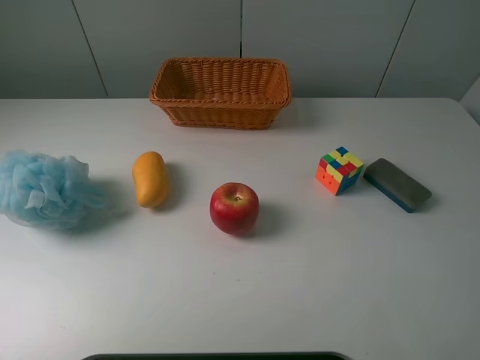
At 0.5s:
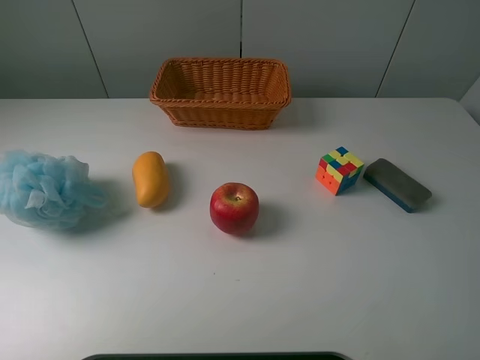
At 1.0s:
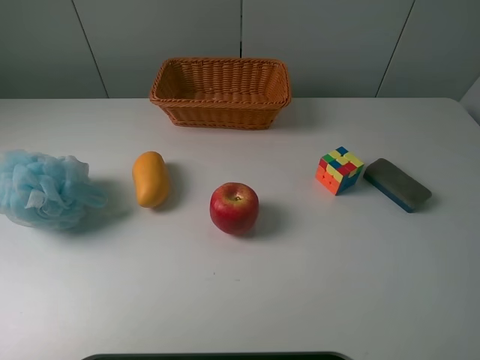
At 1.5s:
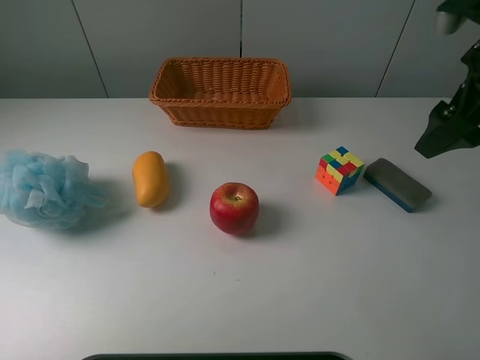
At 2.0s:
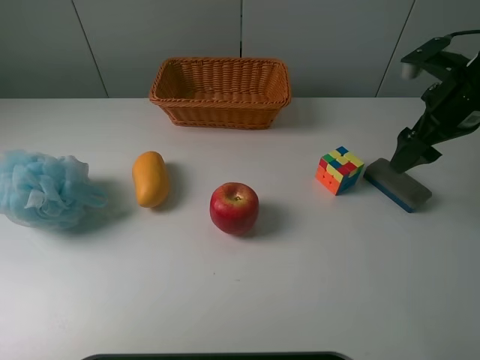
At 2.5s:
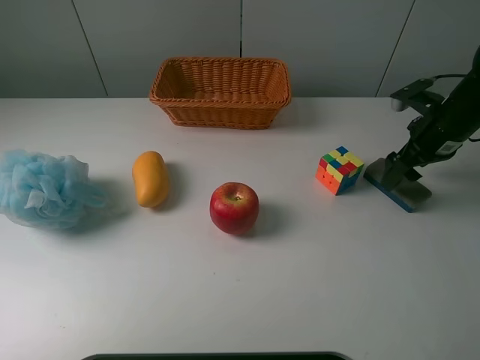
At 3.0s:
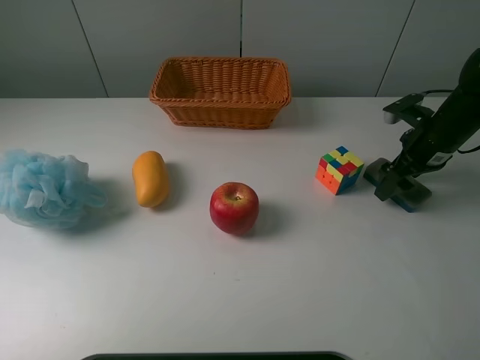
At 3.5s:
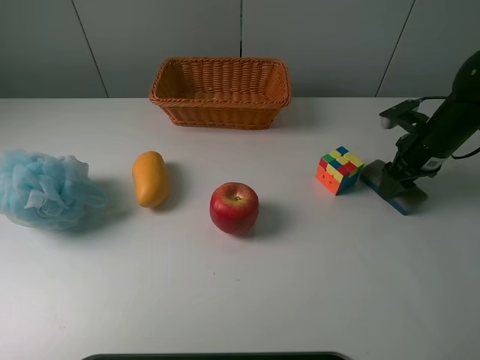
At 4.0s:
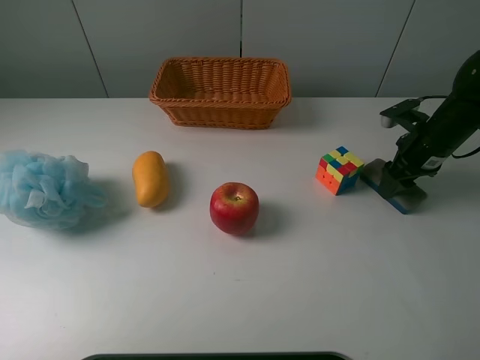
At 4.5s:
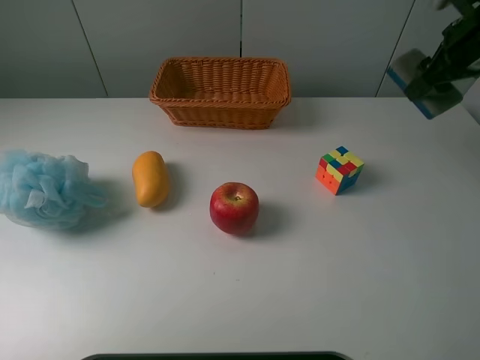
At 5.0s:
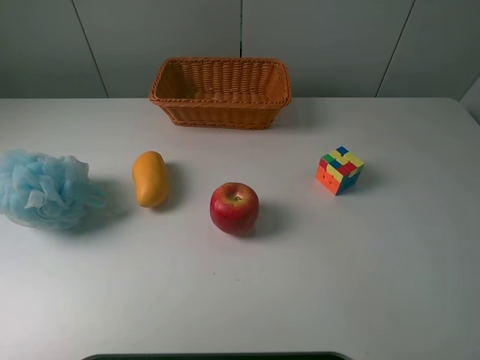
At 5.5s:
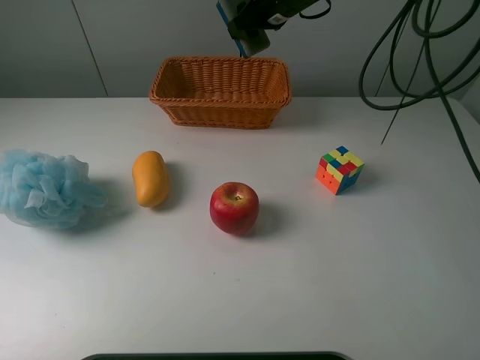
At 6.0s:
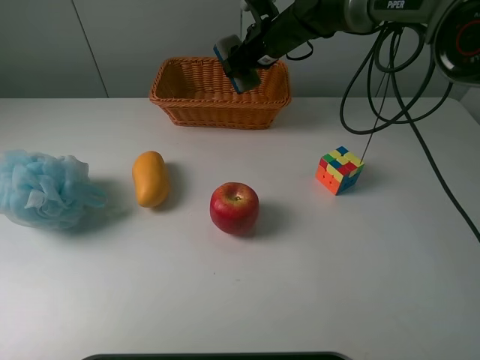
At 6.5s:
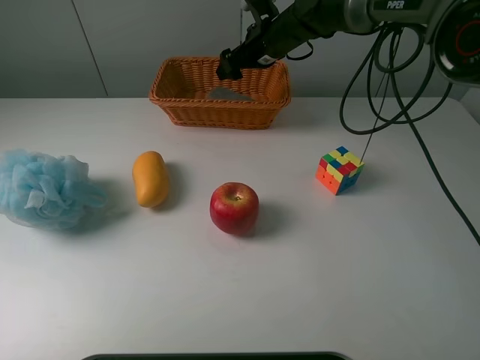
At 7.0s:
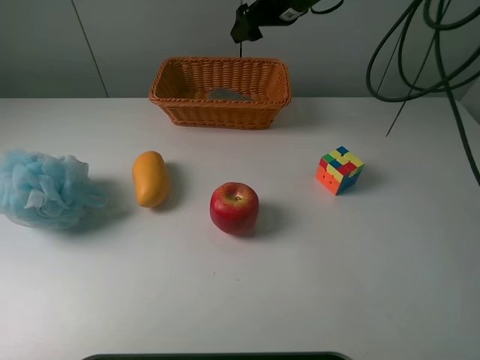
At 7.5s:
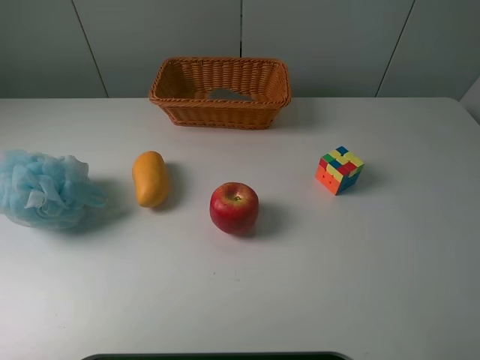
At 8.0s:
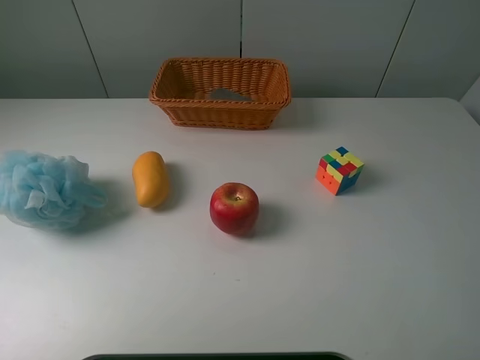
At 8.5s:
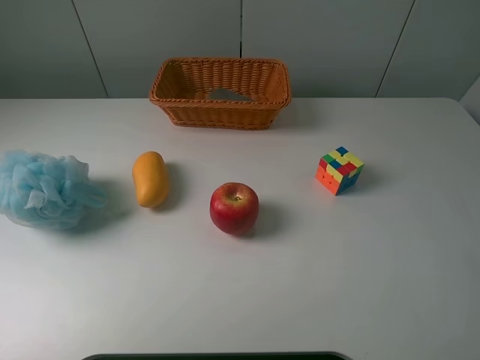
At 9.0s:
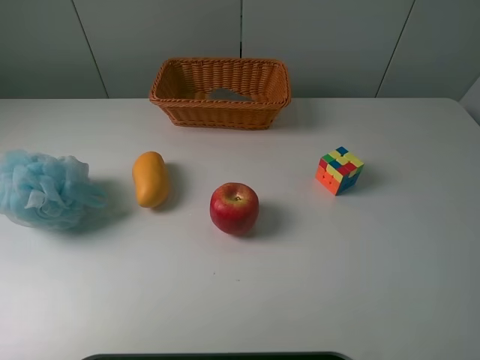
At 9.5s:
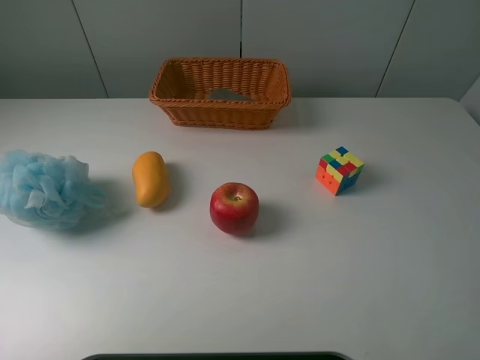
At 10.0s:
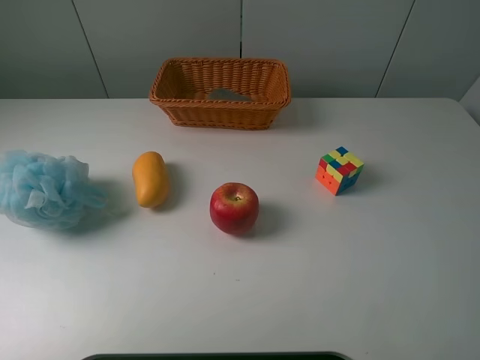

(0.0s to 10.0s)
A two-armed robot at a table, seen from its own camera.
Task of the whole recording: use a picker to grab the item closest to the cube and place it in the basket.
Step, 0.0s - 3.5s: Grasp the blackboard erasure with the right gripper.
Step, 4.0s - 6.5s: Place the blackboard erasure into the basket with the right gripper.
0.0s - 2.0s: The right gripper travels forward by some 30 cm.
2.0s - 4.0s: The right gripper is displaced downward by about 10 cm, and closes up.
4.0s - 6.0s: The right gripper travels to the left and forward by approximately 30 cm, and travels upward and back again, some 25 cm each way.
6.0s - 8.0s: The right gripper is displaced backward, upward and to the right by about 50 cm, and opens its fingers.
